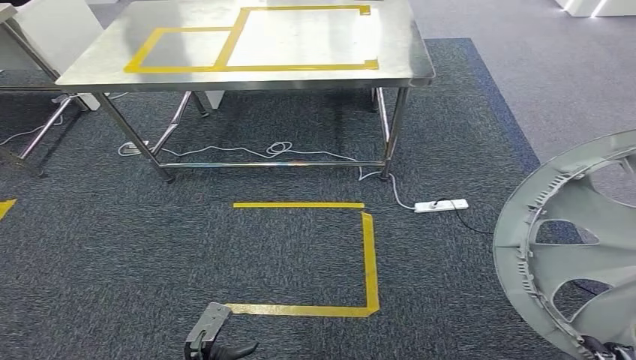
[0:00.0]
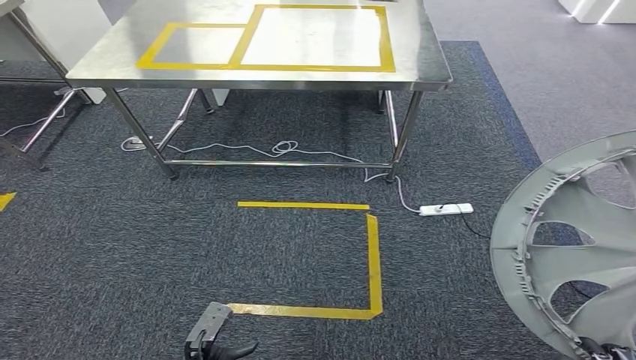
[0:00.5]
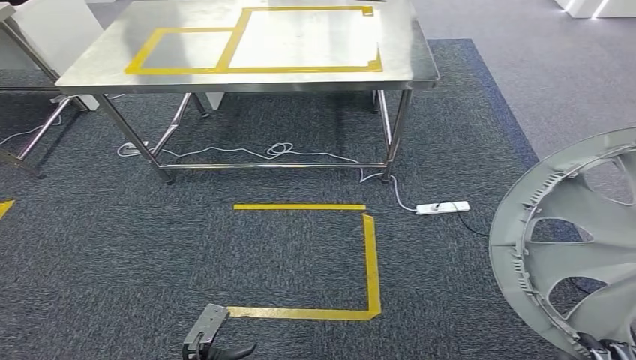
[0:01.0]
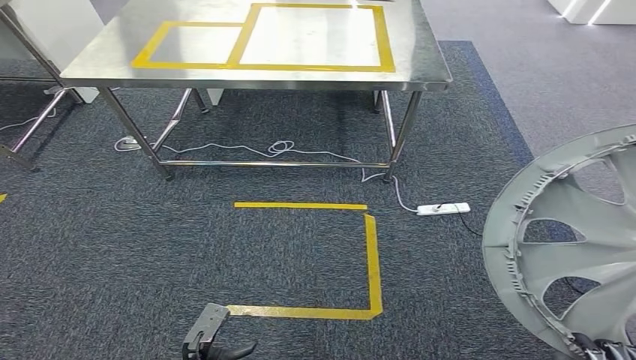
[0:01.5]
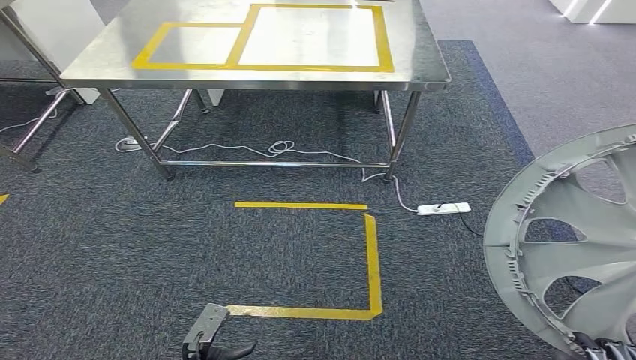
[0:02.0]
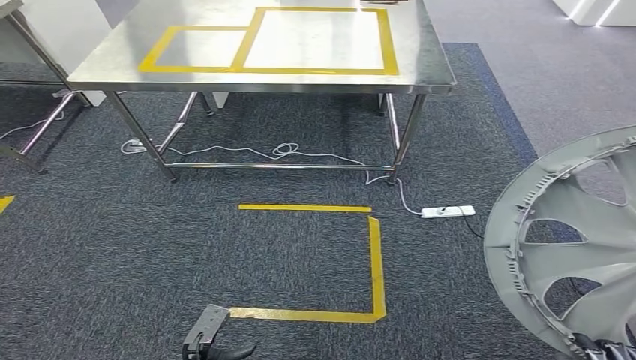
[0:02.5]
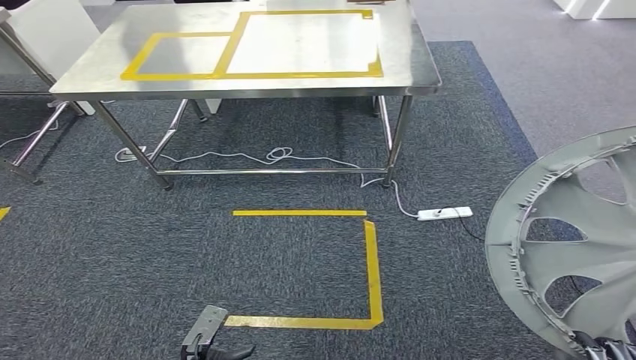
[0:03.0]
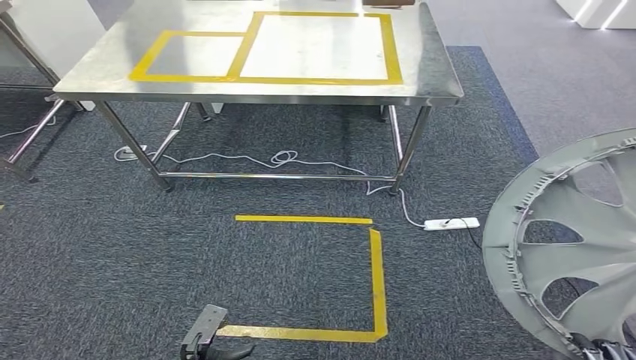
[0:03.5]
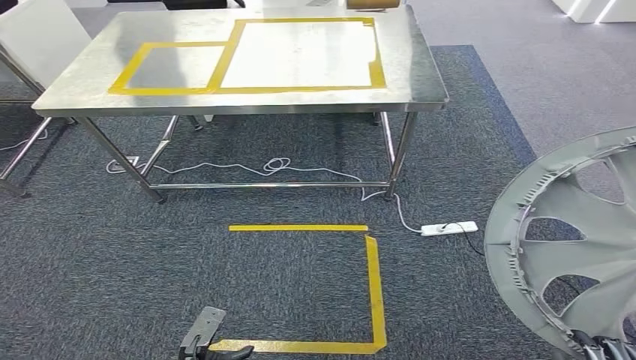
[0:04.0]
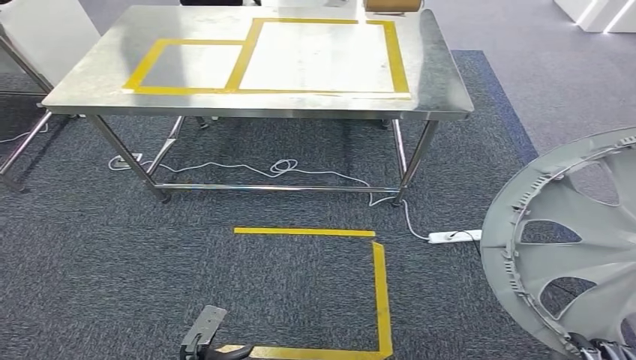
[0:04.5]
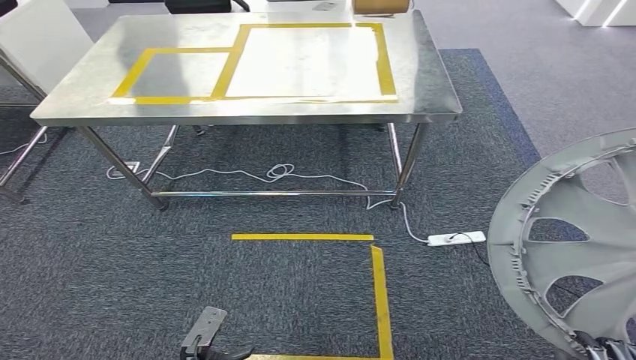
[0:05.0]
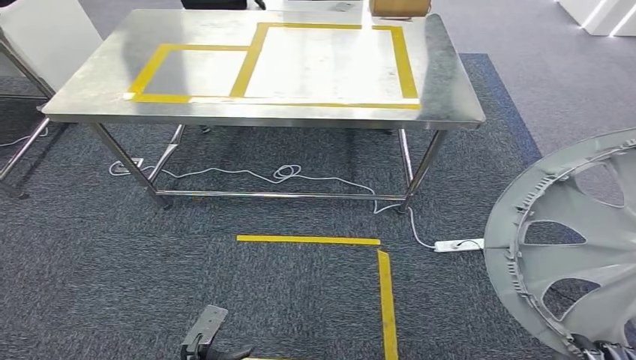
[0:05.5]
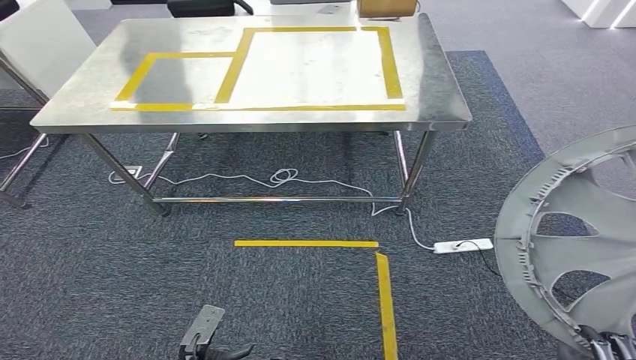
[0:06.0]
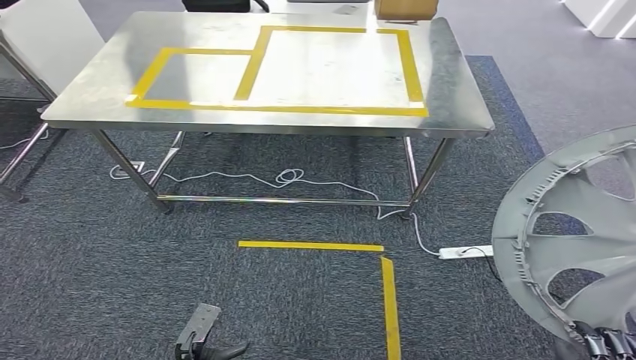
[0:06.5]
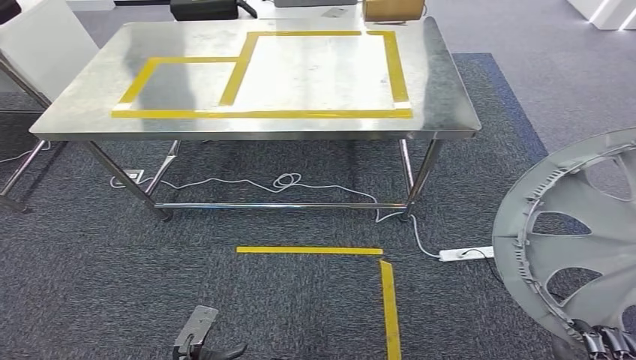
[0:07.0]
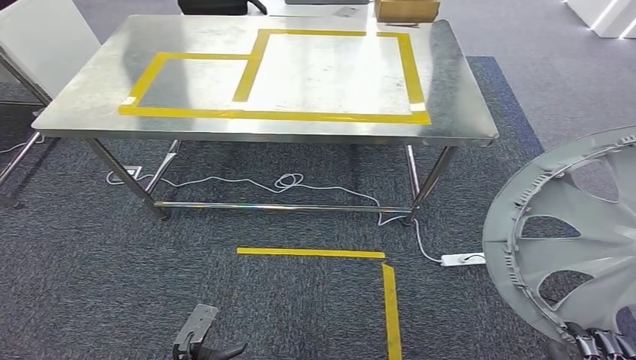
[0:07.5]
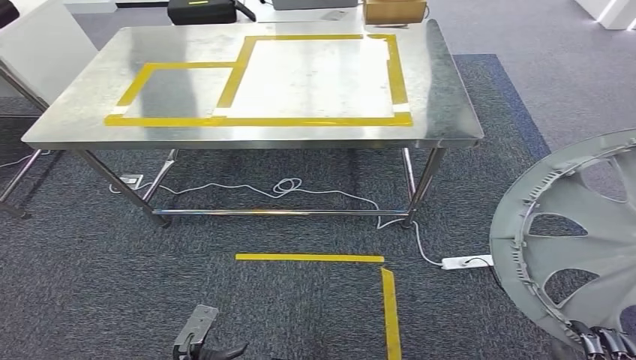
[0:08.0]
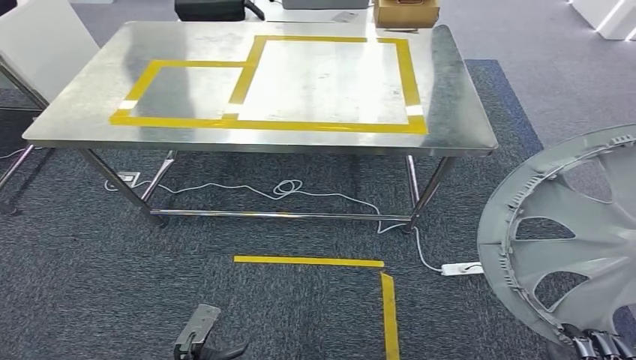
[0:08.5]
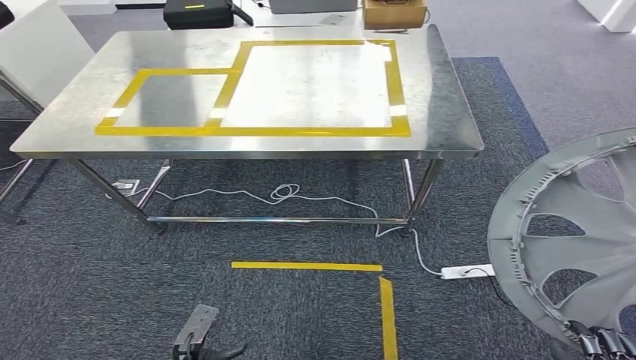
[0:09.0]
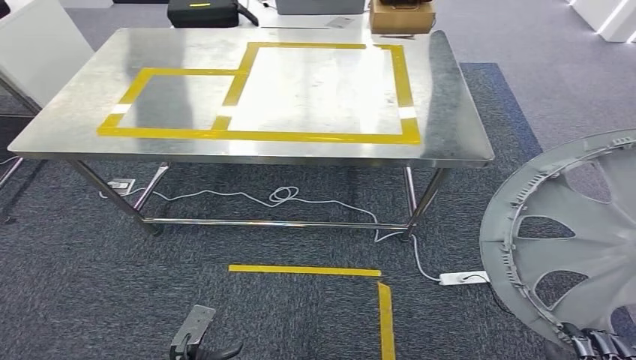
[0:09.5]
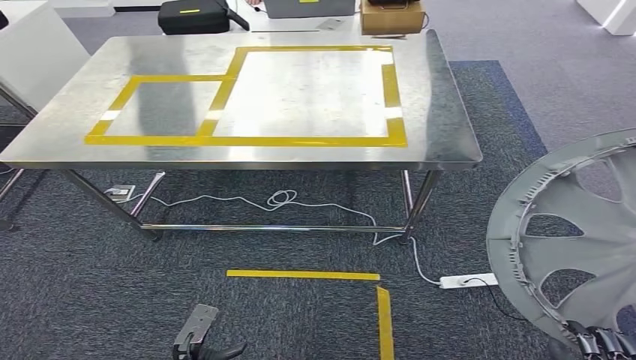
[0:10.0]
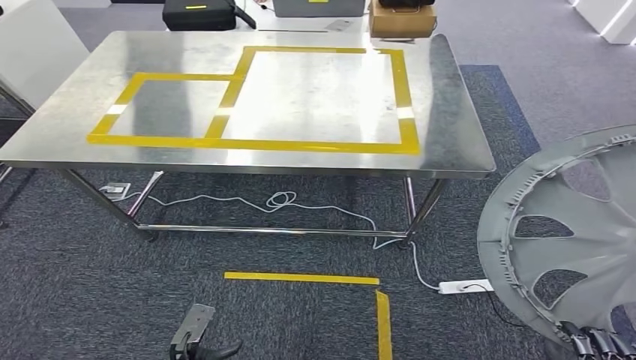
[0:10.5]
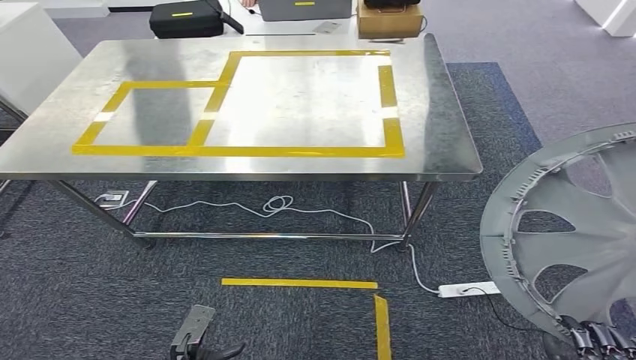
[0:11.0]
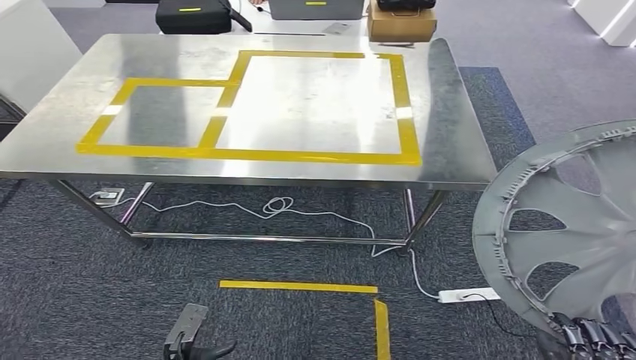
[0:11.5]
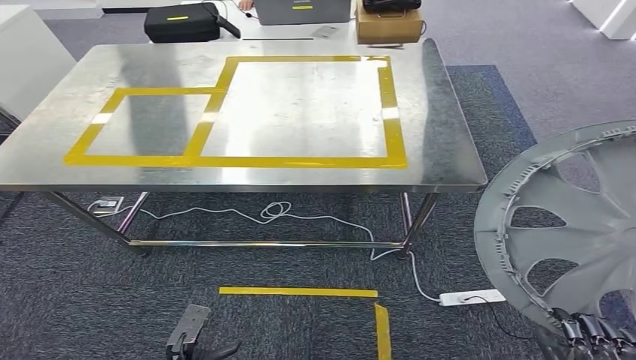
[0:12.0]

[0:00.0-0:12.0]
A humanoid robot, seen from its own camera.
0:00.0 to 0:02.0: Both hands stay about where they are.

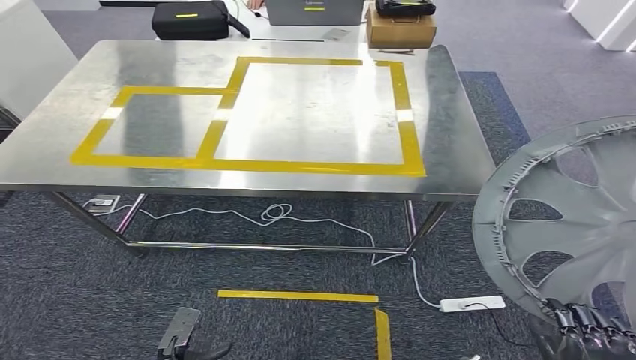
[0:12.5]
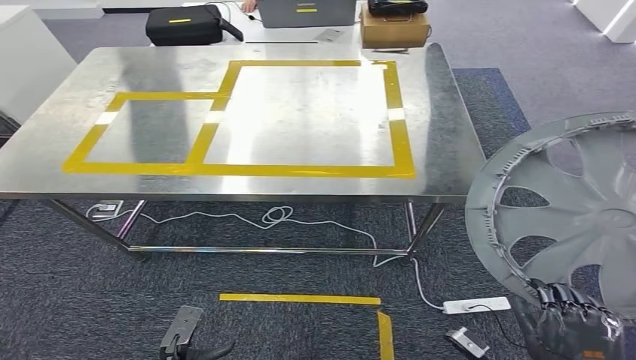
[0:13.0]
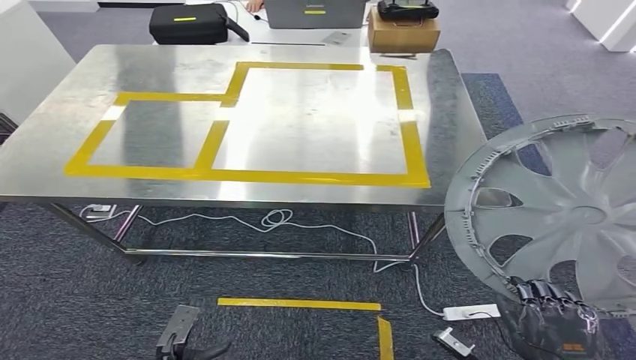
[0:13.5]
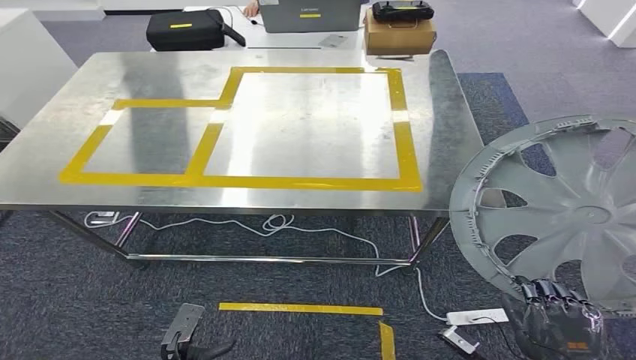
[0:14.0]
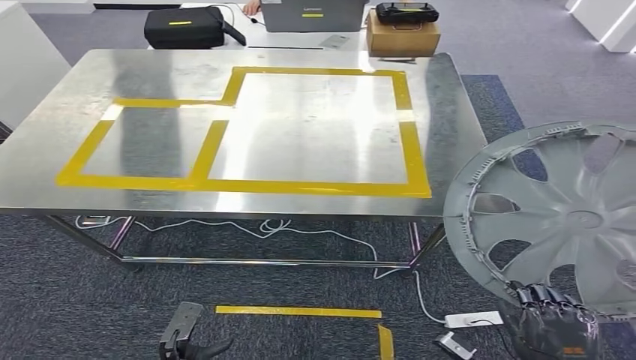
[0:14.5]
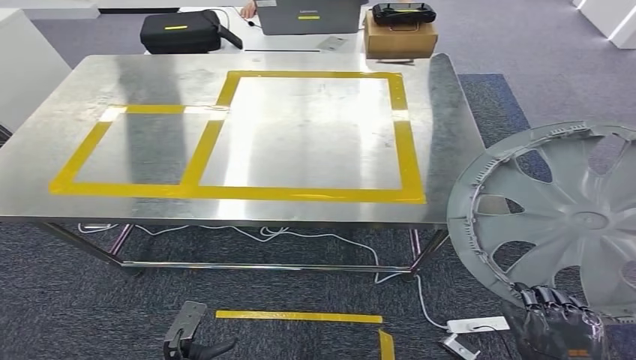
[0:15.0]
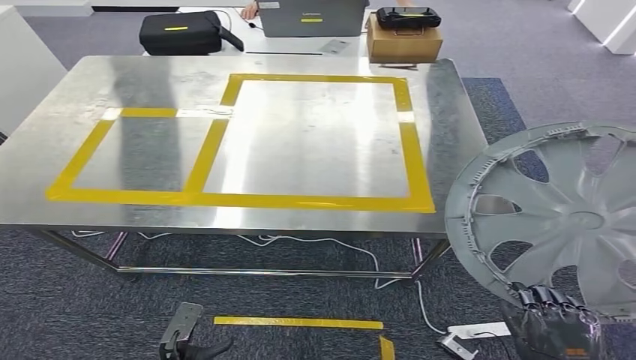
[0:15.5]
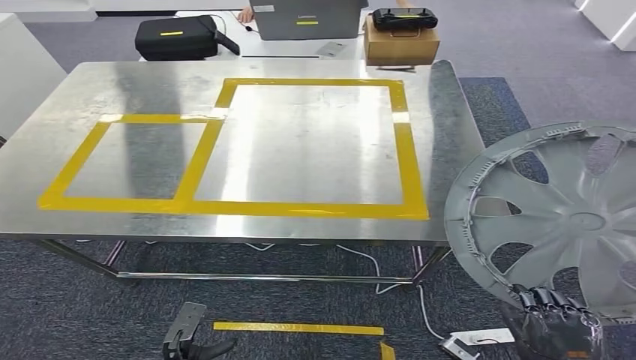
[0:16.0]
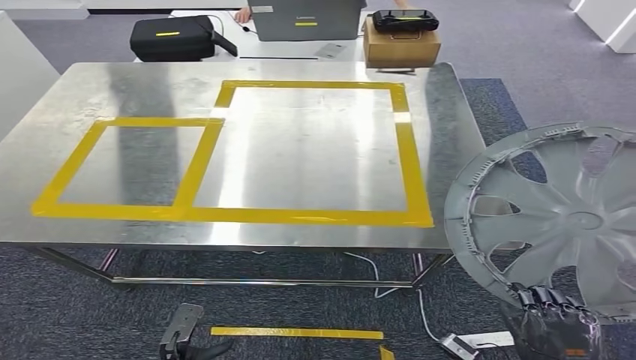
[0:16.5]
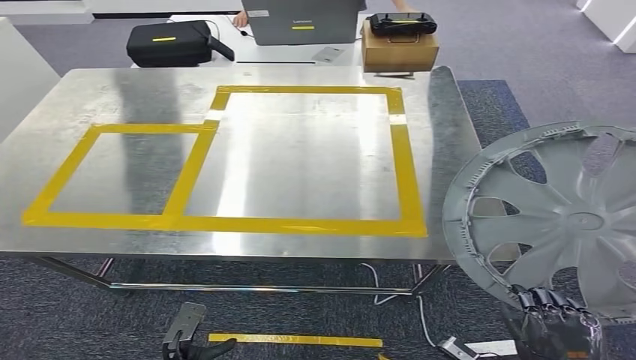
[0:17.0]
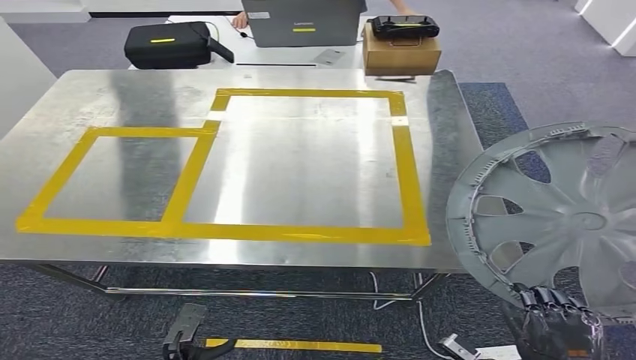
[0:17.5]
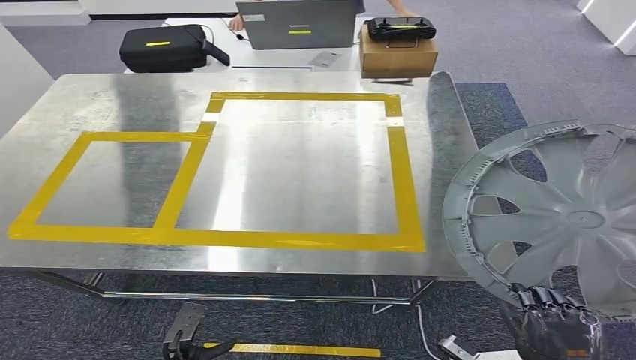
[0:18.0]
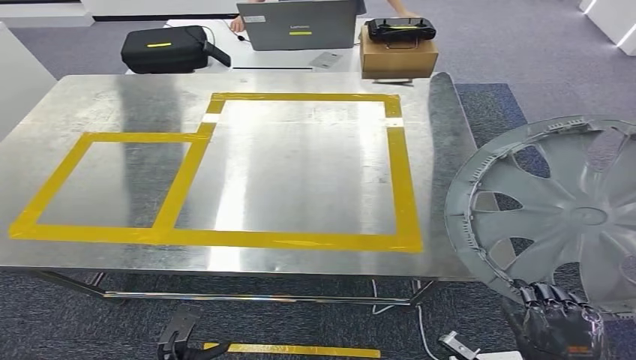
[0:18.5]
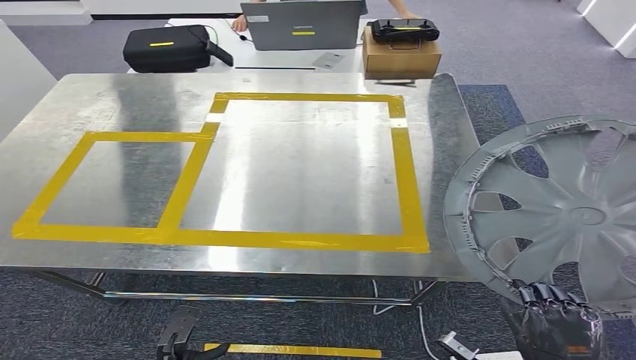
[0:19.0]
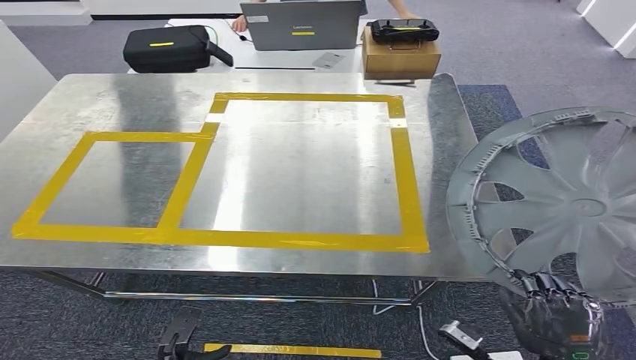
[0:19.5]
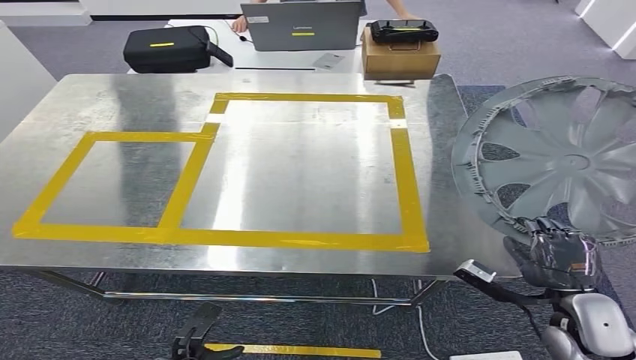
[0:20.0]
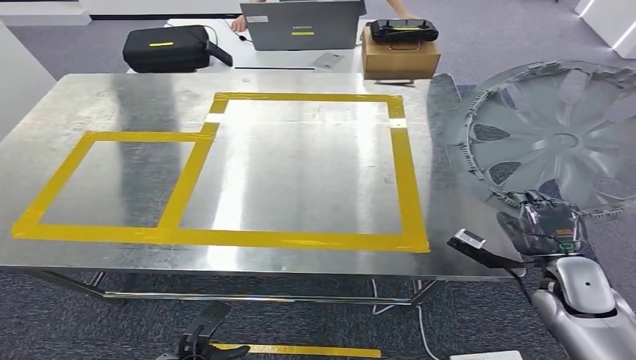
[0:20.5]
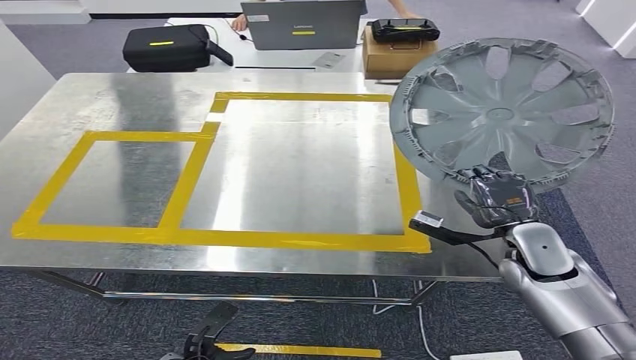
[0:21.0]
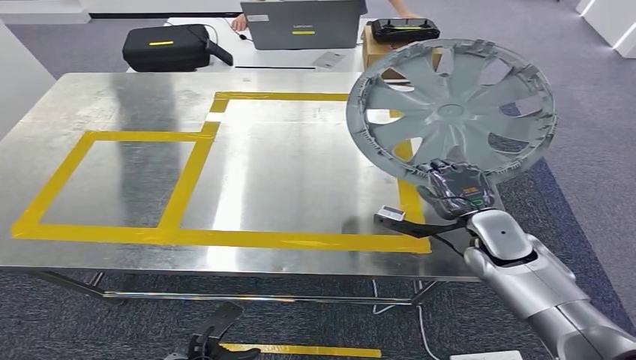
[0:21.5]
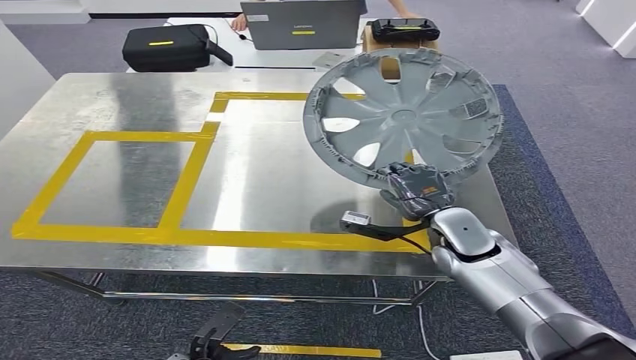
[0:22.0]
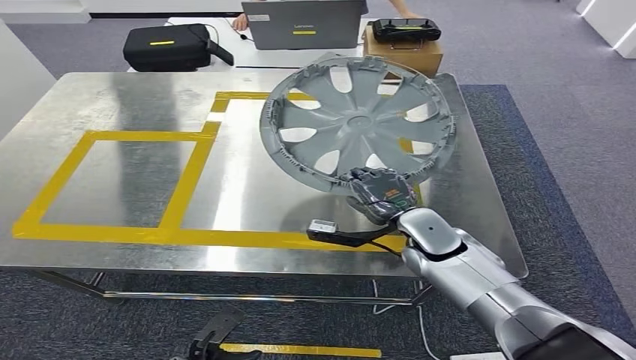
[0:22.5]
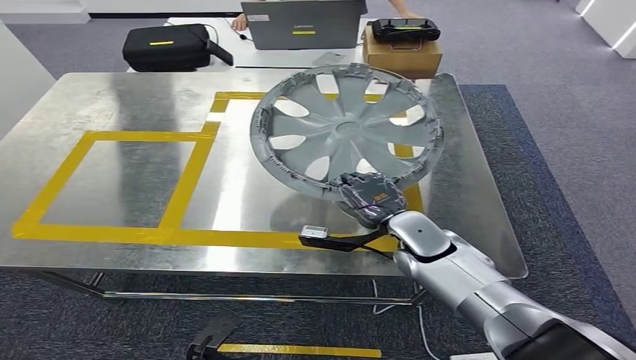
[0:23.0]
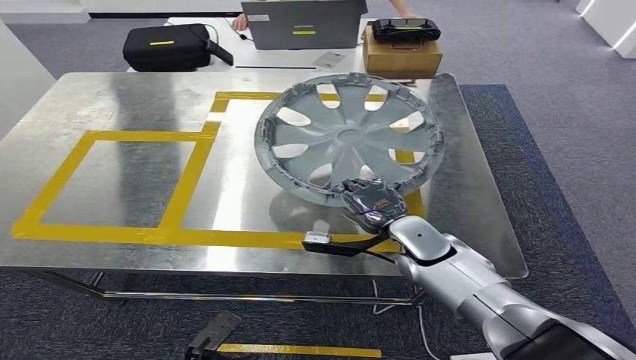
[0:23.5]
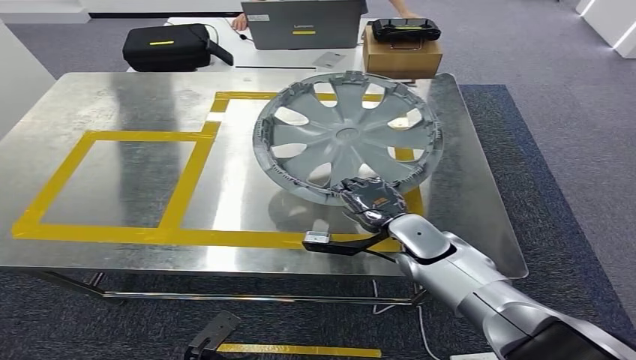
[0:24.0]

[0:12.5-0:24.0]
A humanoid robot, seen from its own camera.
0:18.5 to 0:20.0: The right hand shifts some 15 cm forward.
